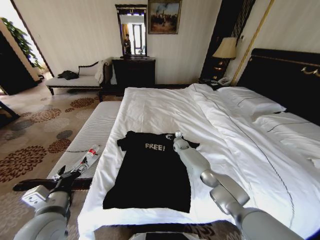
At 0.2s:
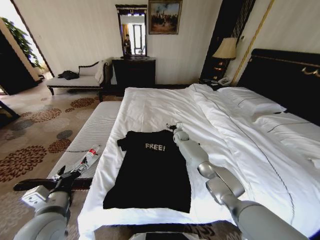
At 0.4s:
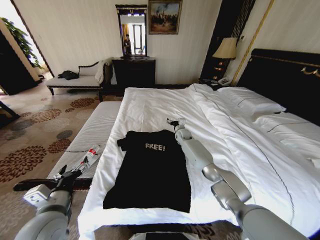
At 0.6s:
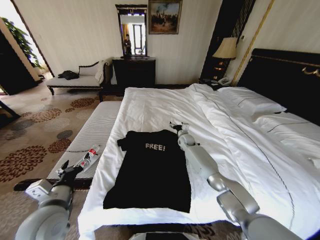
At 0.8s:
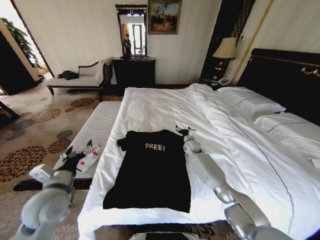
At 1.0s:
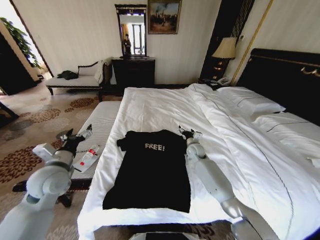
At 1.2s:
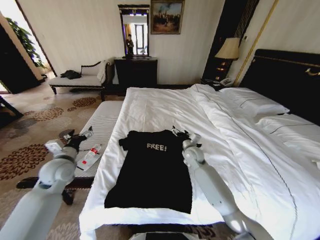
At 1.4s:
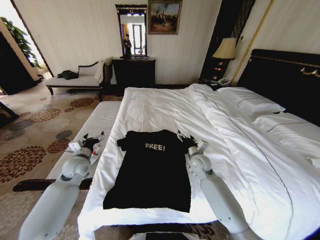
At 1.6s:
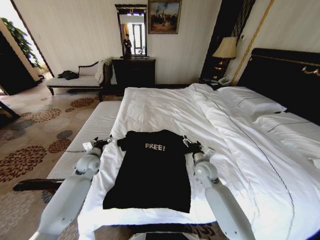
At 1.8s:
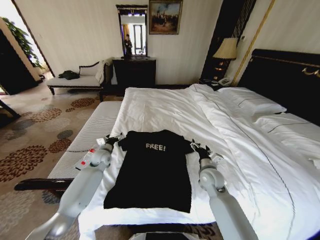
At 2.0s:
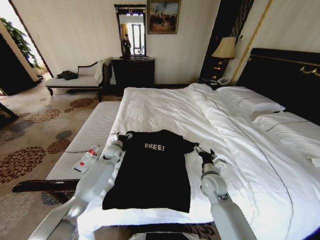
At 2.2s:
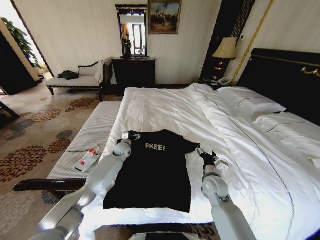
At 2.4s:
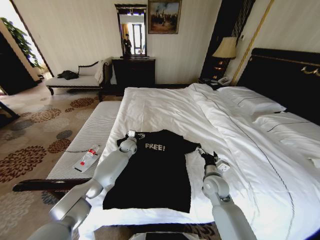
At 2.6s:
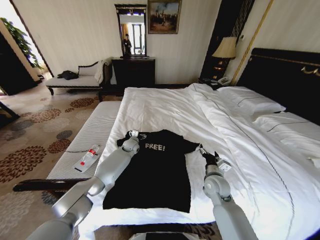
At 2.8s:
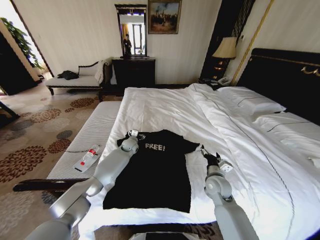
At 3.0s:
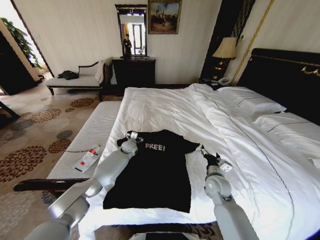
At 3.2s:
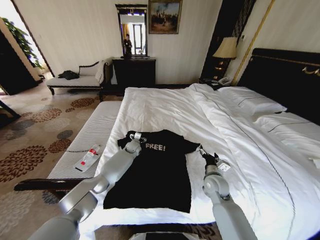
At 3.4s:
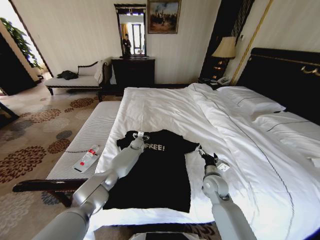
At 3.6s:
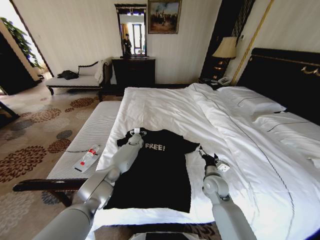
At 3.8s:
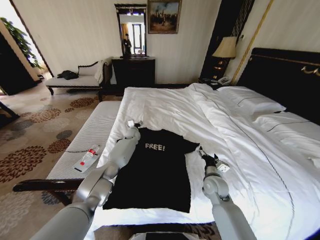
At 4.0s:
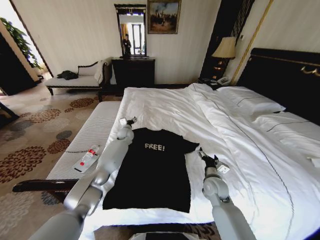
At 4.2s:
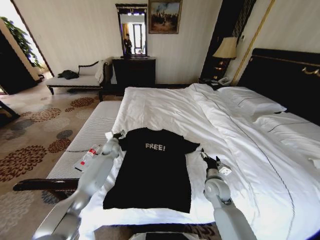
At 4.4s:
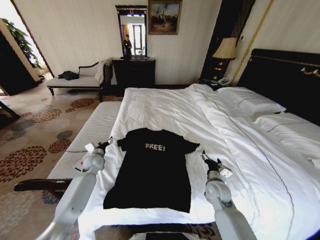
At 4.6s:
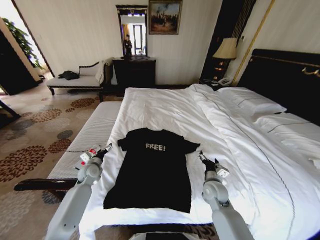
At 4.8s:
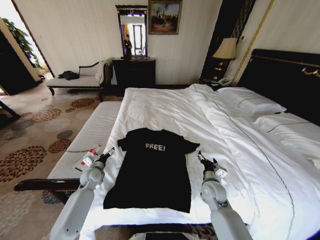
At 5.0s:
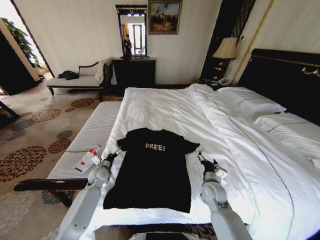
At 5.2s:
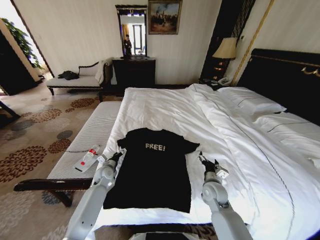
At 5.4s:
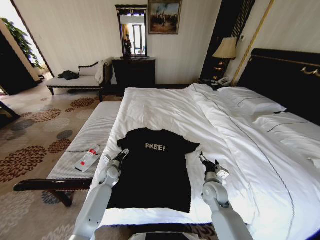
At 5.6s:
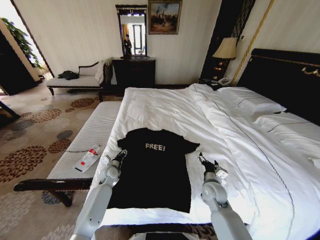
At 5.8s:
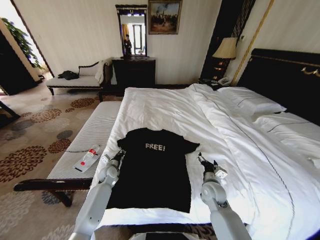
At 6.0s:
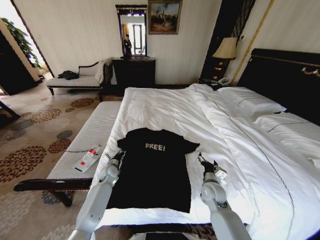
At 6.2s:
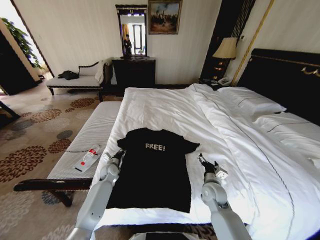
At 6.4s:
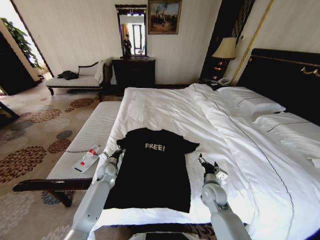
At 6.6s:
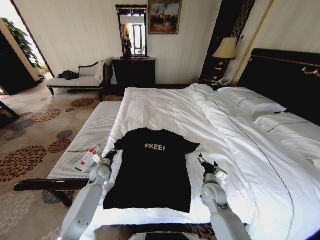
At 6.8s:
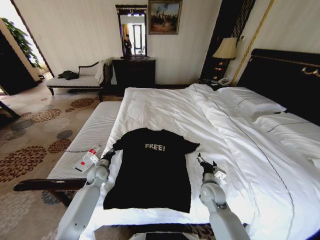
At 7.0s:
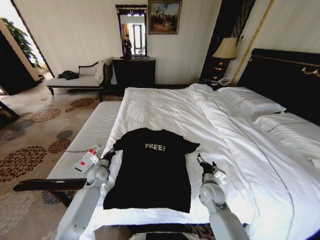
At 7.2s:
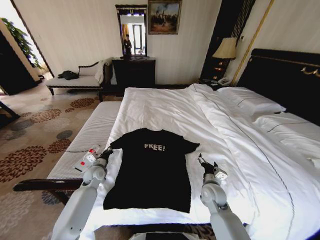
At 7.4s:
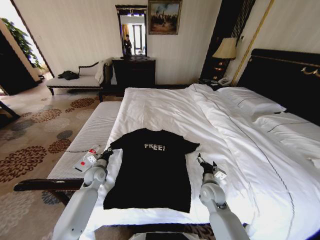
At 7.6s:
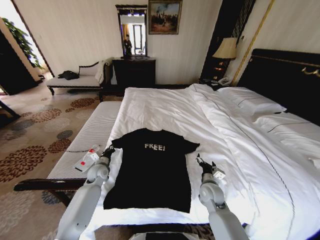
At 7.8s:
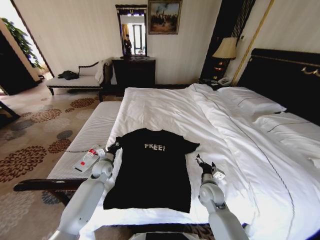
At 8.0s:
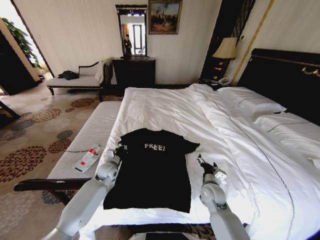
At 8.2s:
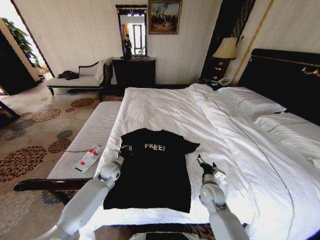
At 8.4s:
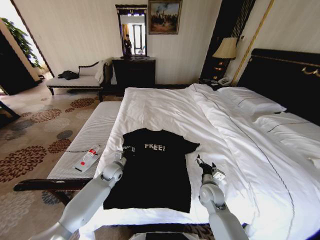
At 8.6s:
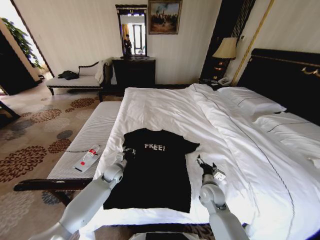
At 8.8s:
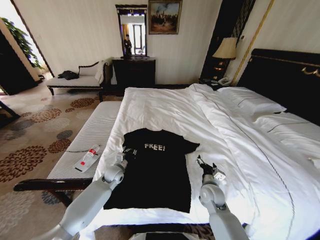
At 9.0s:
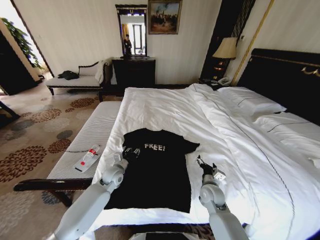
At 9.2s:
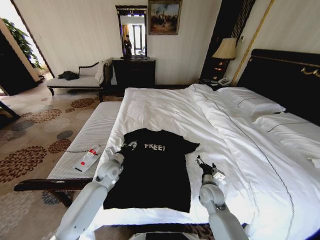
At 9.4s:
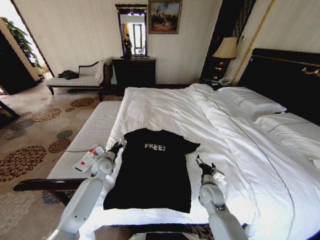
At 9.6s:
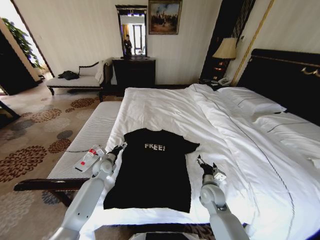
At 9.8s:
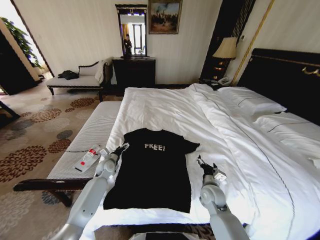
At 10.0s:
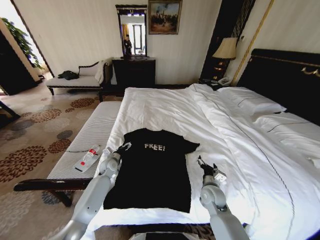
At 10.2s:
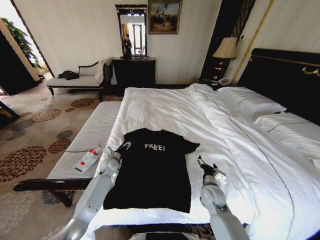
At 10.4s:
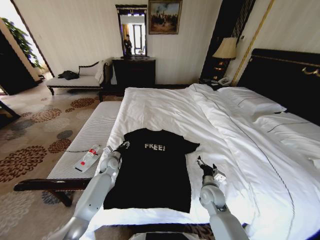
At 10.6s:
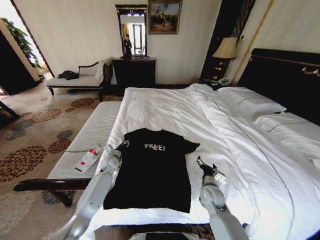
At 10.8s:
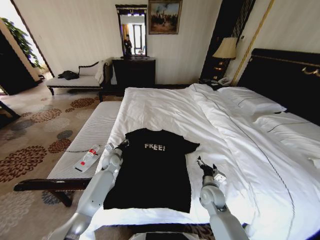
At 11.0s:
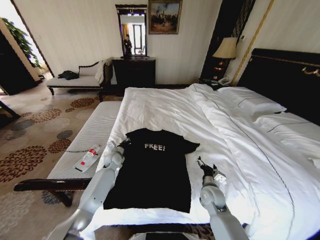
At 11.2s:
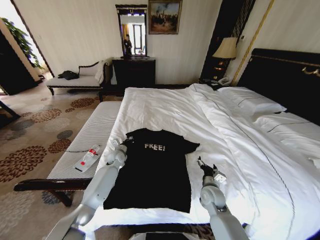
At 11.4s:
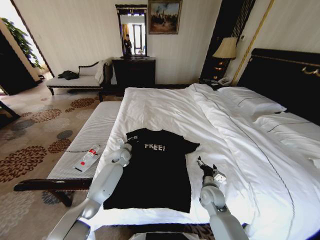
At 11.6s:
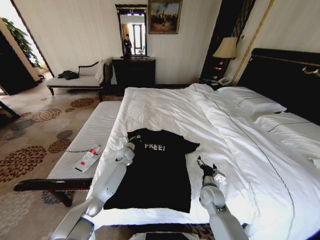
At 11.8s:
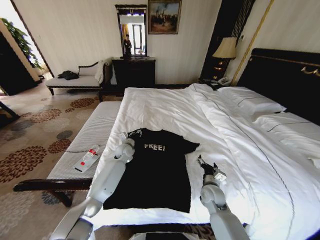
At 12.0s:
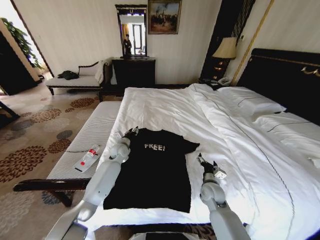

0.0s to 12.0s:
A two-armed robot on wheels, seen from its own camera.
Task of the whole recording: Fold the clothes on the bed.
0.0s to 1.6s: The right gripper shifts about 25 cm backward. The left gripper travels forward by some 25 cm.
1.6s to 3.0s: The left gripper moves to the right and forward, some 25 cm. Meanwhile the right gripper travels backward by about 5 cm.
3.0s to 4.4s: The left gripper travels to the left and backward by approximately 20 cm.
4.4s to 6.0s: The left gripper is displaced downward and to the right by approximately 10 cm, and closes up.
6.0s to 7.6s: The left gripper ends up roughly 5 cm from where it was.
7.6s to 9.0s: The left gripper heads to the right, covering about 10 cm.
9.0s to 10.4s: The left gripper moves forward, about 10 cm, and opens, then closes again.
10.4s to 12.0s: The left gripper goes some 10 cm upward and to the right, and closes, then opens again.

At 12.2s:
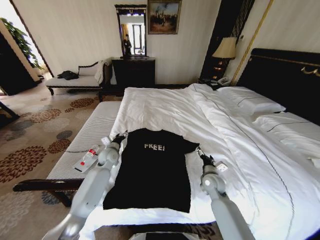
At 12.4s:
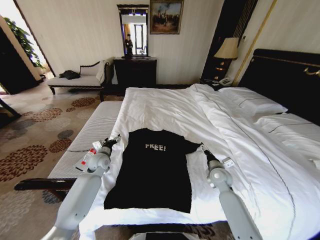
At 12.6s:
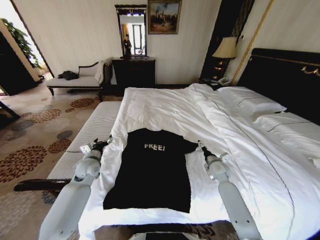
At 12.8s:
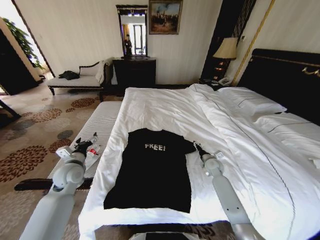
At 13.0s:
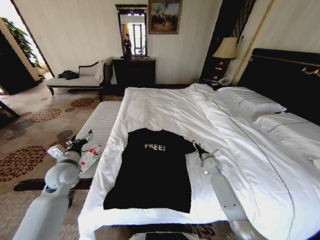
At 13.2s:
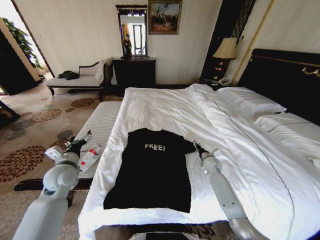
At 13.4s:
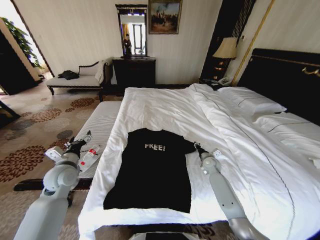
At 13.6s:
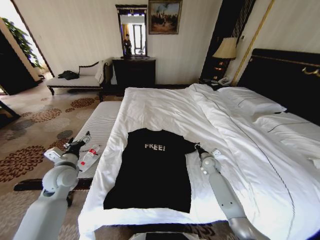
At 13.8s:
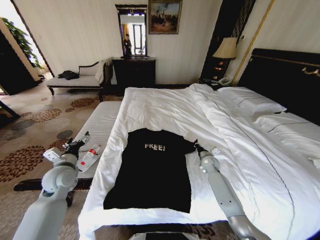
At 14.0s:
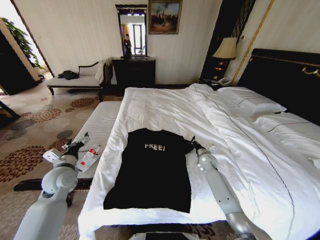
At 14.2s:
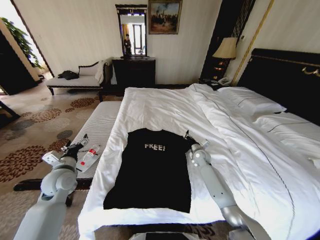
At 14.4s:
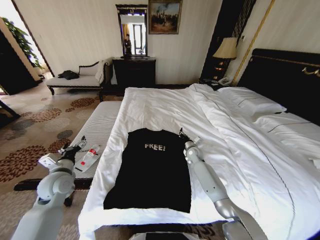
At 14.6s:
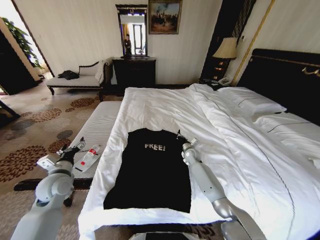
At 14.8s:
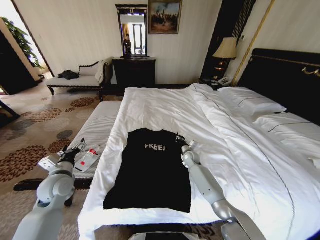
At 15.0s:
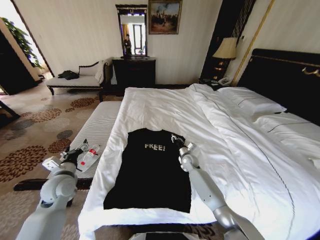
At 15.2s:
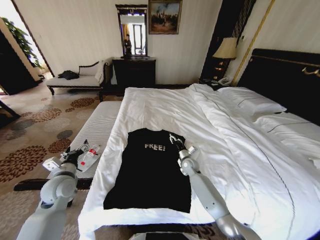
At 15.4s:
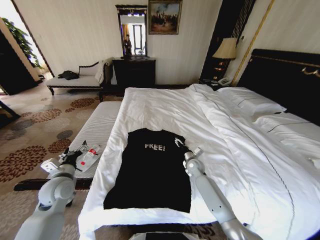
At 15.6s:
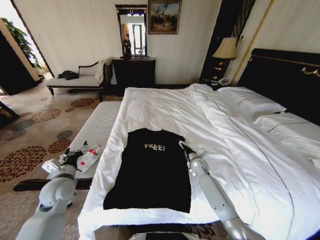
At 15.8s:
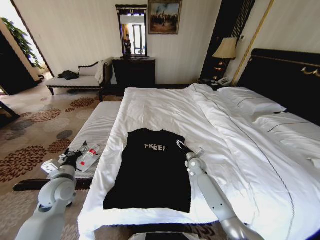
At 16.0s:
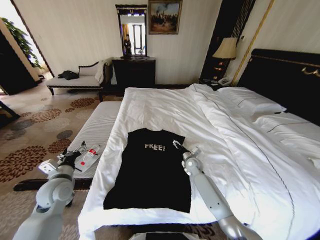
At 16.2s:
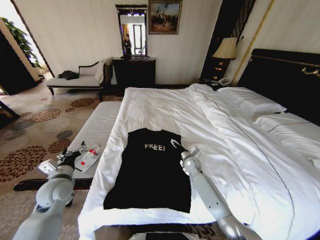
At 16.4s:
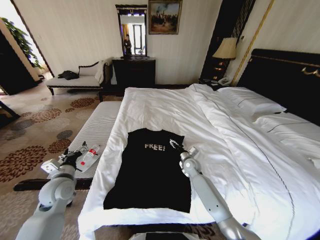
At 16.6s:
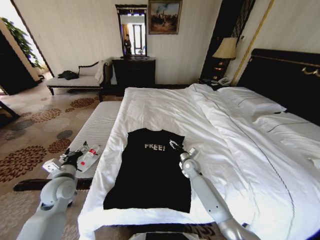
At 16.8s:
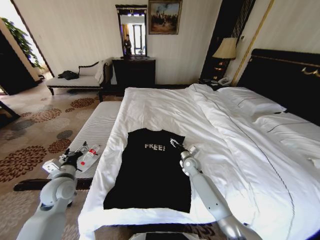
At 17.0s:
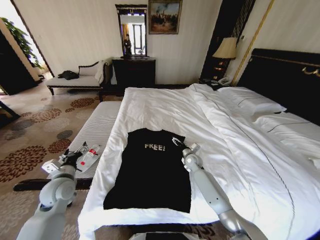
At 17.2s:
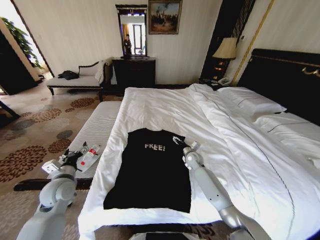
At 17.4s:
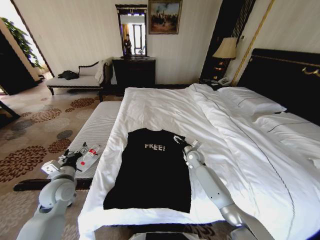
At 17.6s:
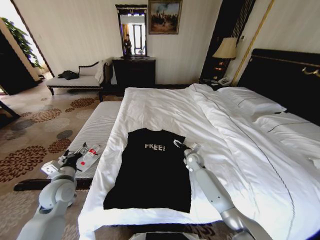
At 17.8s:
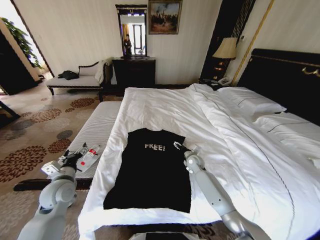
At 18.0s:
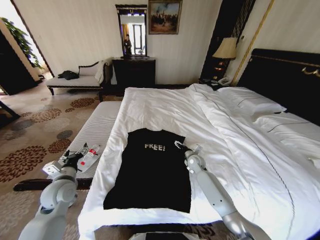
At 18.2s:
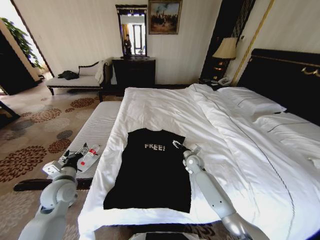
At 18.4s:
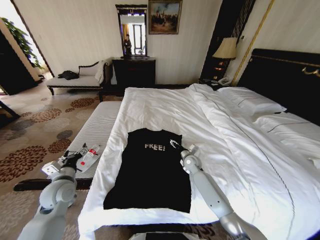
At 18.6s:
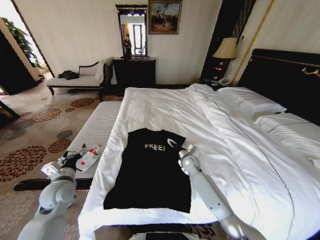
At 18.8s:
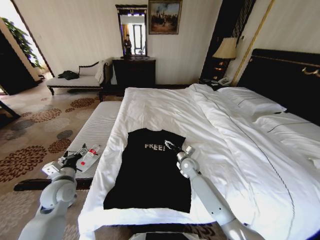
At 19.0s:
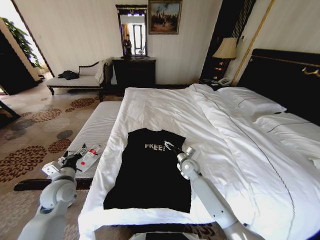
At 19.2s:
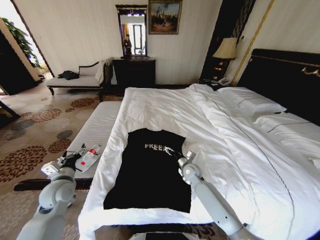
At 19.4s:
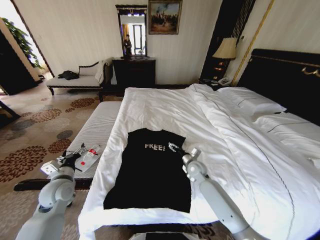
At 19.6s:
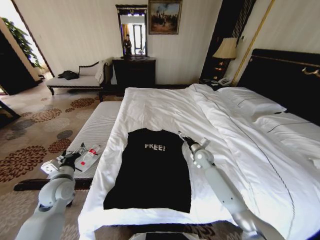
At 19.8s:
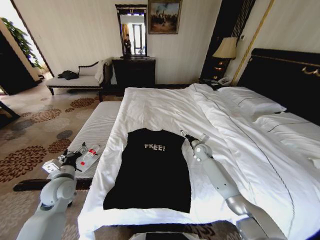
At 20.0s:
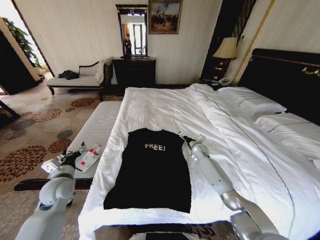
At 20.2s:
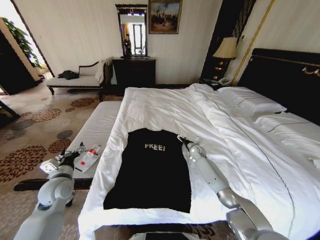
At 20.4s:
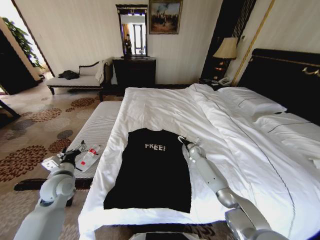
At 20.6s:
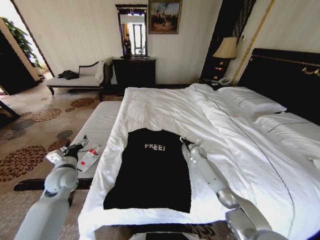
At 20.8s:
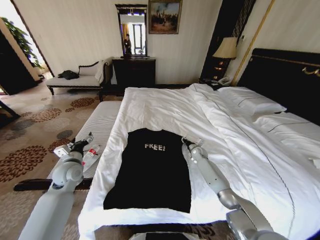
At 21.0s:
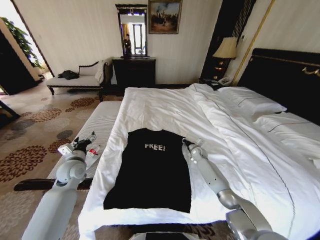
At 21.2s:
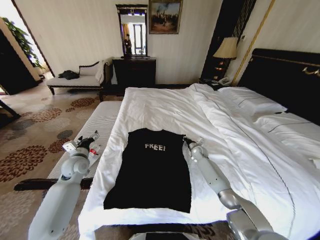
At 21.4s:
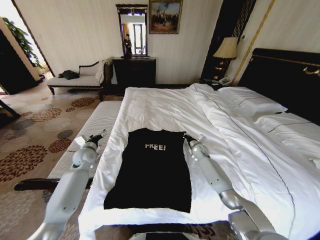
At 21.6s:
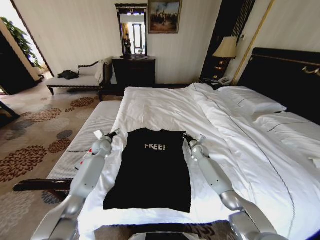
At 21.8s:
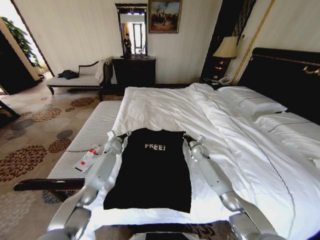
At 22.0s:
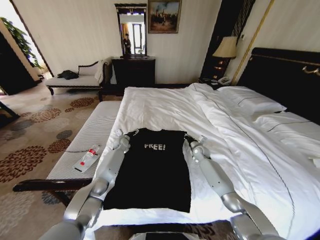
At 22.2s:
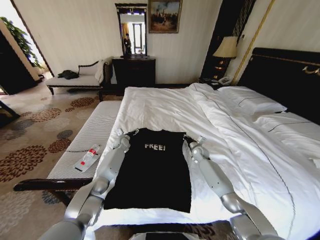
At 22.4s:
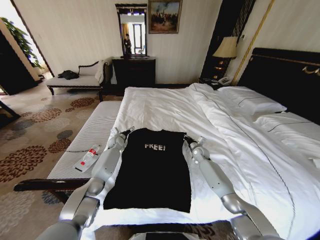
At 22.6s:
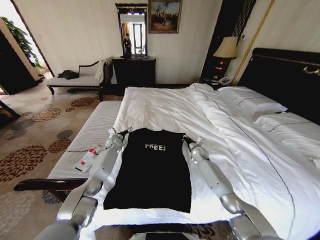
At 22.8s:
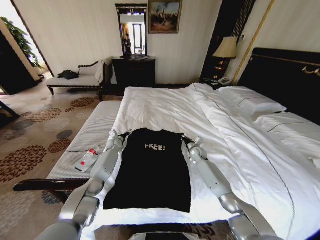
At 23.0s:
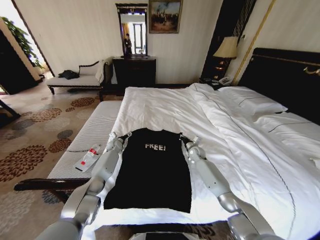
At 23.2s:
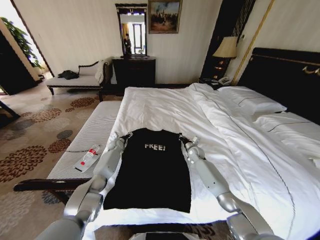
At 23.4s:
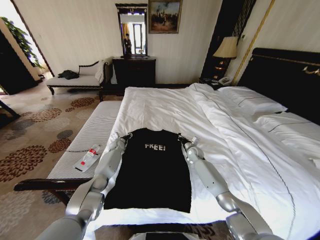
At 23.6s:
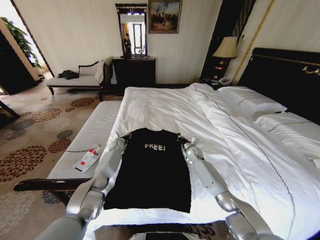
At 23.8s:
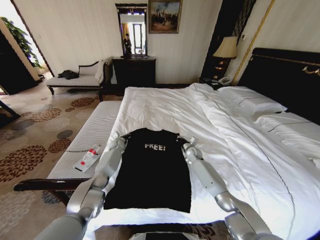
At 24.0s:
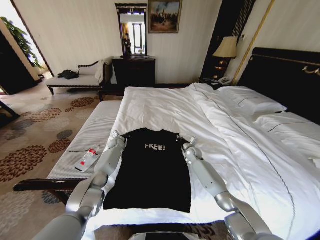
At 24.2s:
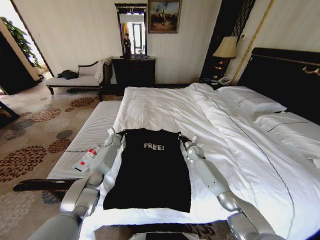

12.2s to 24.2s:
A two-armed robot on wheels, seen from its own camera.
Task of the whole recording: Fold the clothes on the bed.
12.2s to 13.8s: The right gripper travels forward and to the right by some 15 cm, and closes its fingers; the left gripper shifts roughly 20 cm backward, to the left and upward.
13.8s to 15.2s: The right gripper moves to the left, some 10 cm, and opens up.
15.2s to 16.6s: The right gripper opens its fingers.
16.6s to 18.2s: The grippers stay close to where they were, moving slightly.
18.2s to 19.8s: The right gripper goes about 10 cm to the right and forward.
19.8s to 21.2s: The right gripper ends up some 5 cm from where it was, and closes; the left gripper is displaced forward by about 10 cm.
21.2s to 22.6s: The left gripper travels forward, to the right and downward by approximately 25 cm.
22.6s to 24.2s: The left gripper closes.
